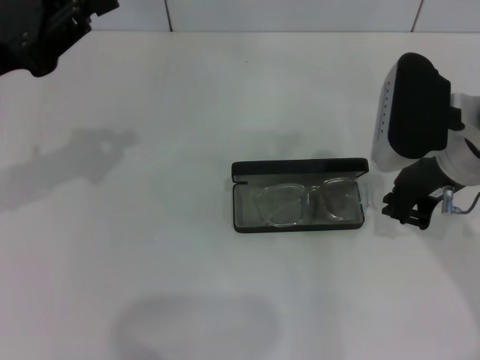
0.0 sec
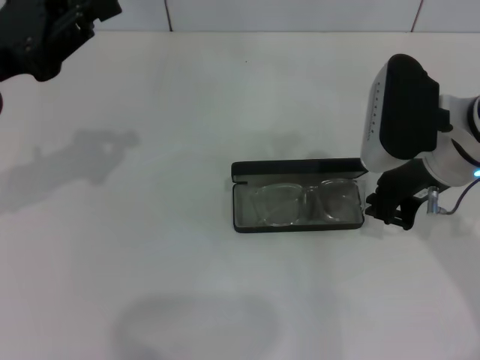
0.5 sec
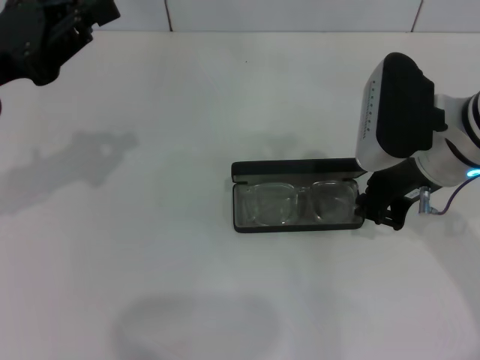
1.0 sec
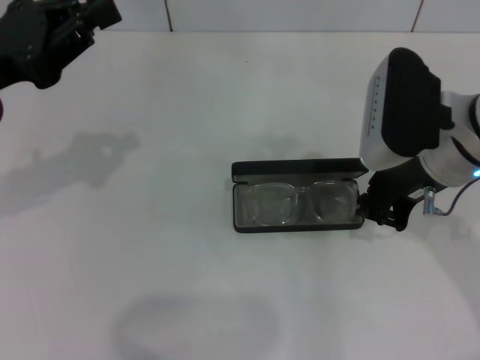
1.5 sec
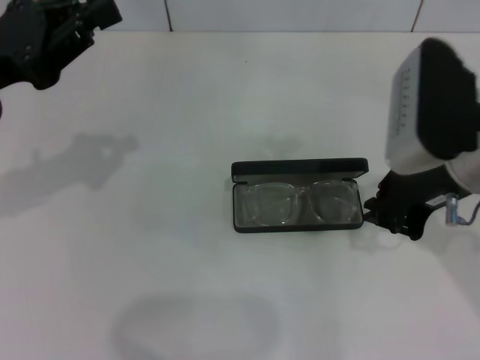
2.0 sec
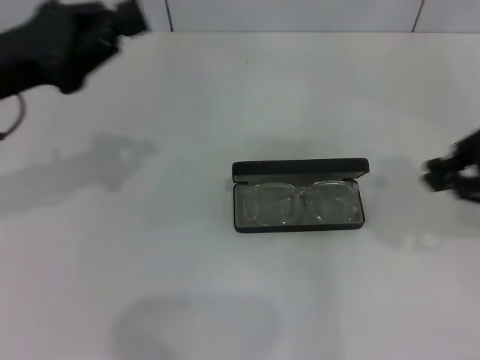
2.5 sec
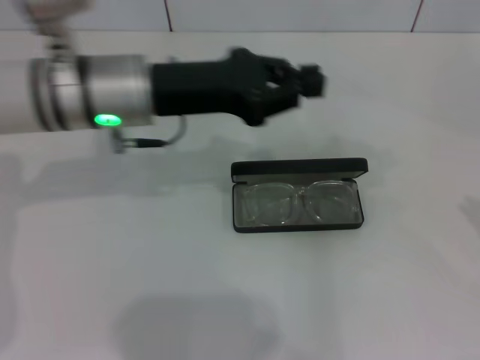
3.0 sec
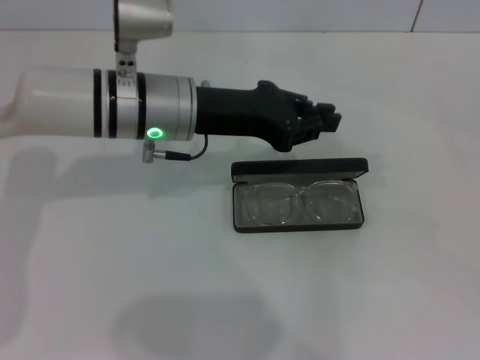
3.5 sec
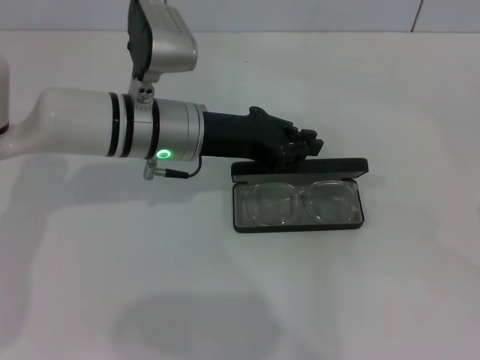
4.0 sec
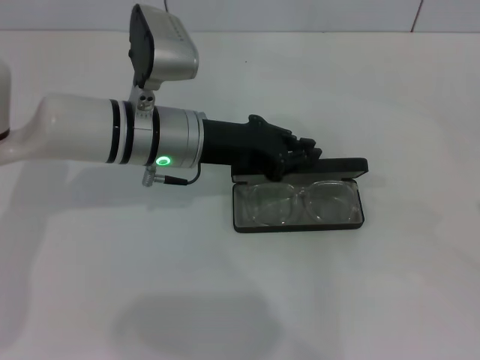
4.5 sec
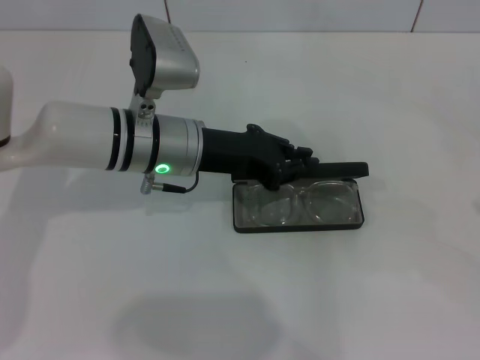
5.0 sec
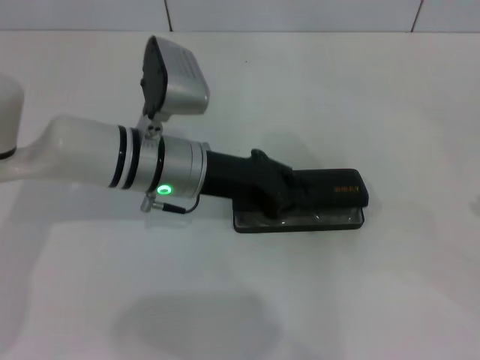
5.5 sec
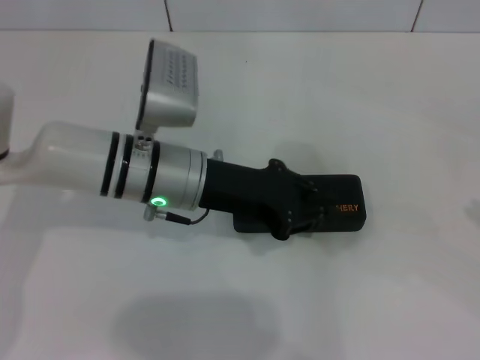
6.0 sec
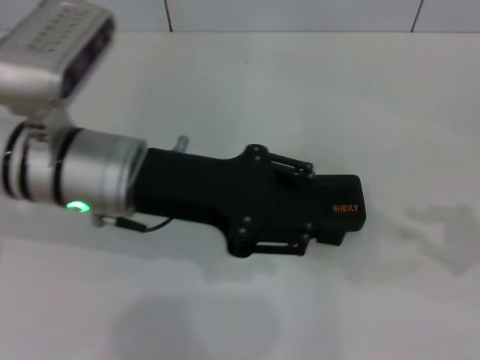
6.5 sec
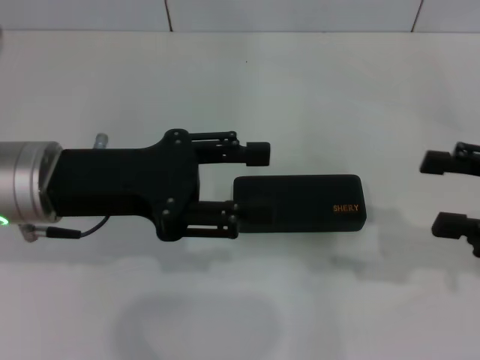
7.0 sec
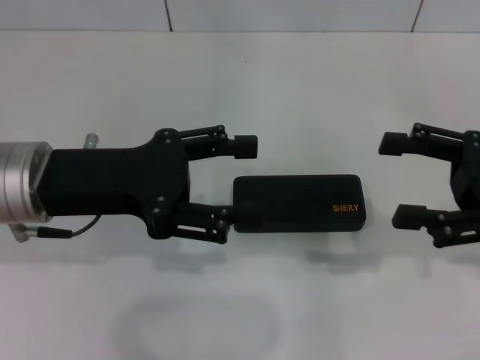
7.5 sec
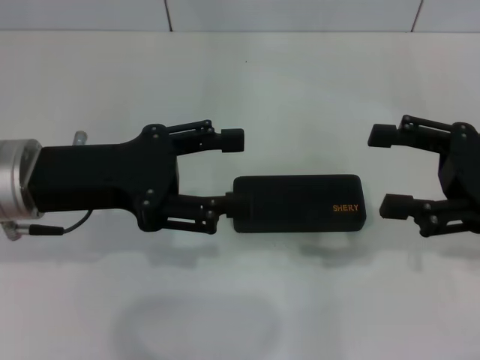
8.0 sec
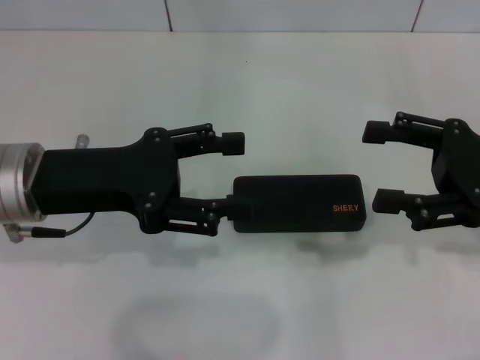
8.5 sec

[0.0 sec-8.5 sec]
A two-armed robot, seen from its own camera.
Step, 0.0 sec to 5.5 sec: Close the glasses case with your left hand.
0.0 sec to 2.0 sec: The grippers move only a little.
2.0 sec to 4.0 sec: The right gripper heads to the right and backward, covering roughly 30 cm. The left gripper goes some 20 cm to the right and downward.
4.0 sec to 6.5 sec: The left gripper goes about 10 cm backward and upward. Meanwhile the right gripper changes place by about 5 cm.
6.5 sec to 8.5 sec: The left gripper travels to the left by some 5 cm, and opens up; the right gripper goes about 15 cm to the left and forward, and opens up.

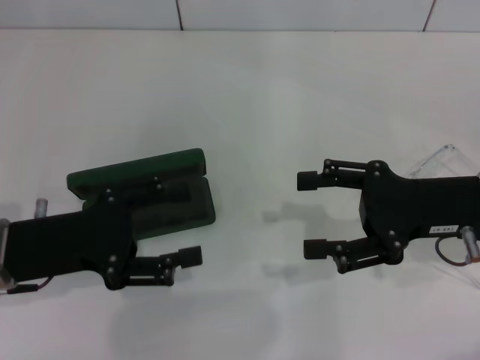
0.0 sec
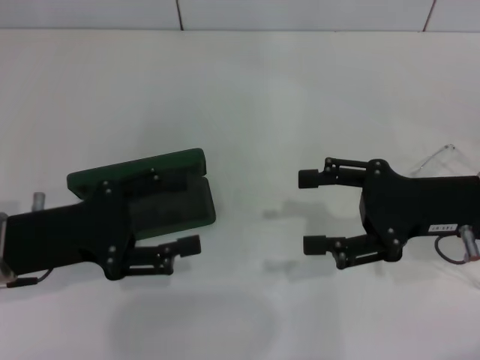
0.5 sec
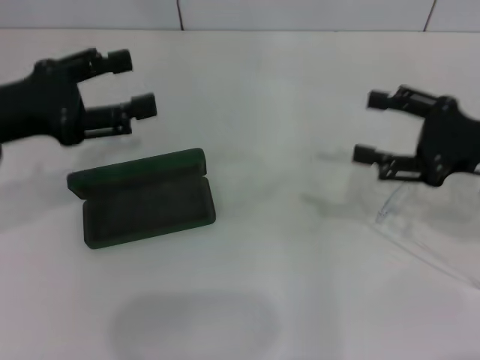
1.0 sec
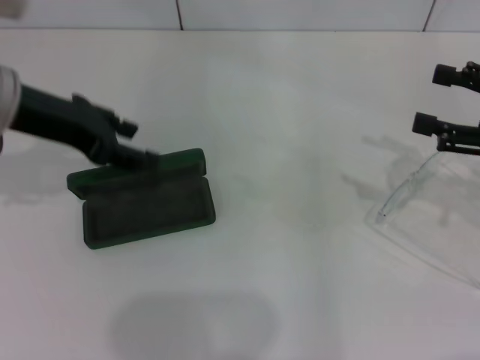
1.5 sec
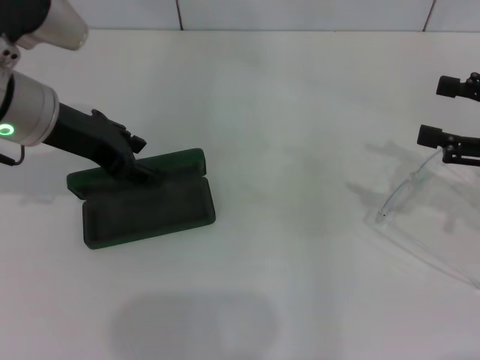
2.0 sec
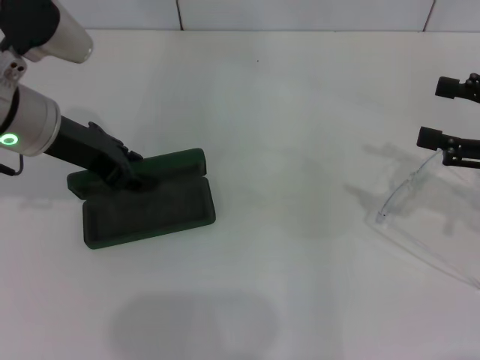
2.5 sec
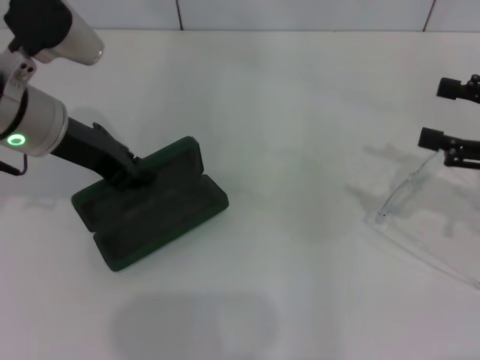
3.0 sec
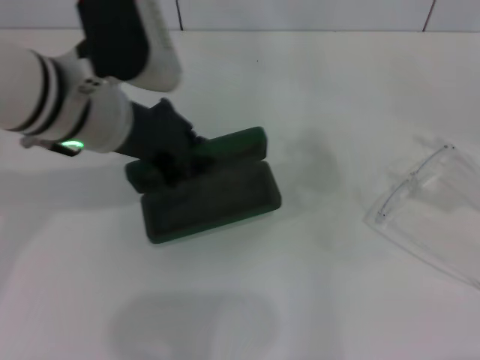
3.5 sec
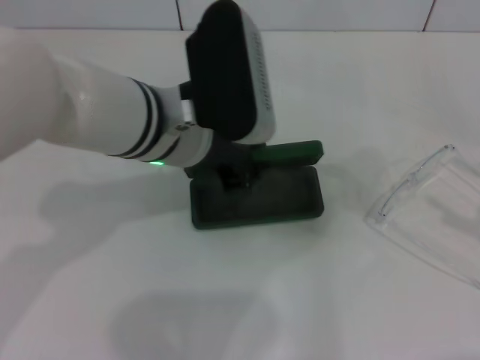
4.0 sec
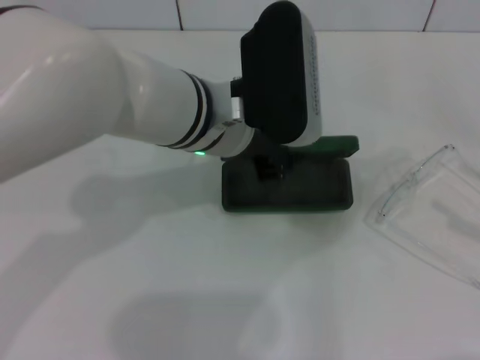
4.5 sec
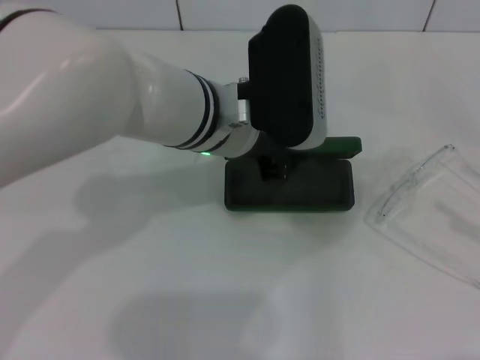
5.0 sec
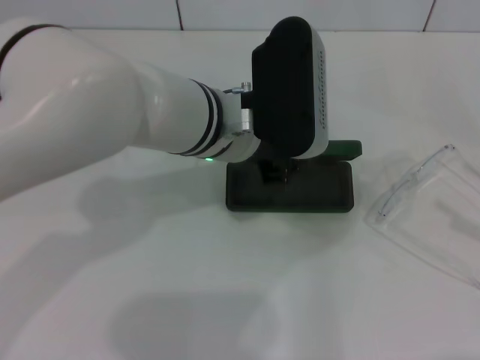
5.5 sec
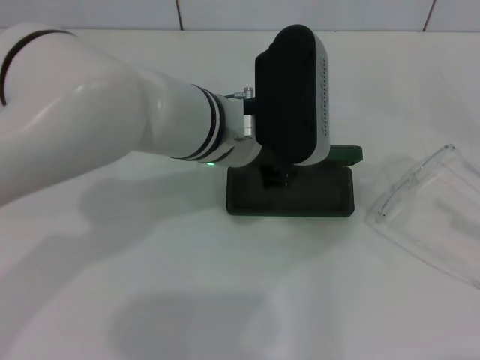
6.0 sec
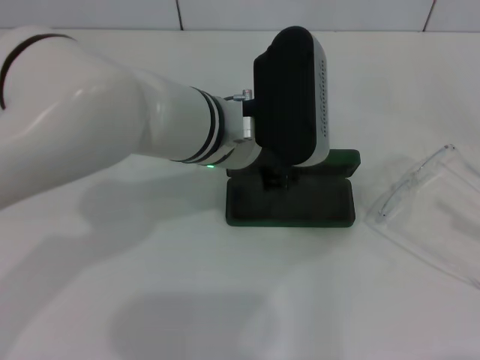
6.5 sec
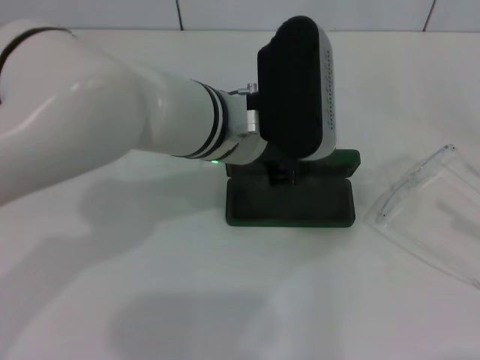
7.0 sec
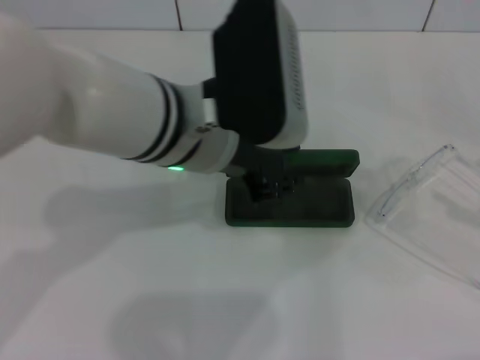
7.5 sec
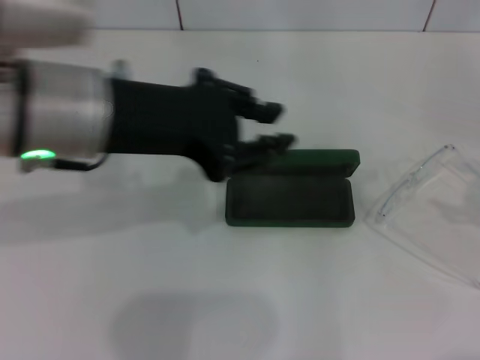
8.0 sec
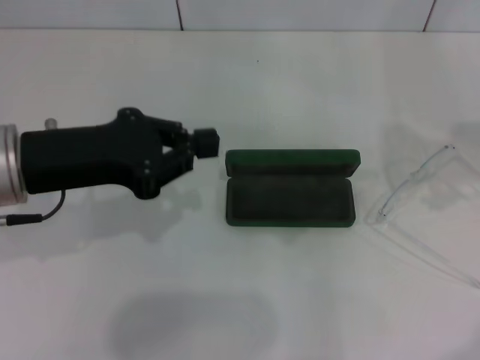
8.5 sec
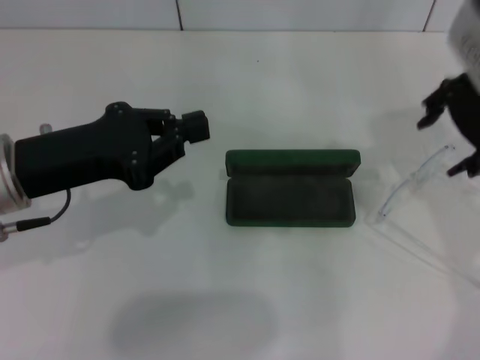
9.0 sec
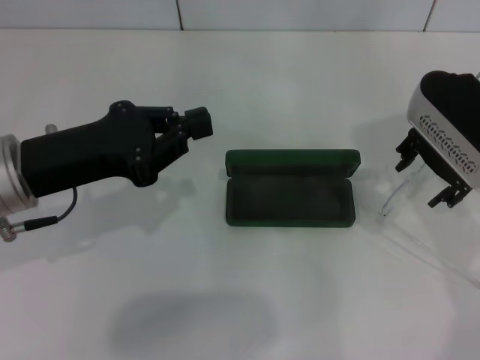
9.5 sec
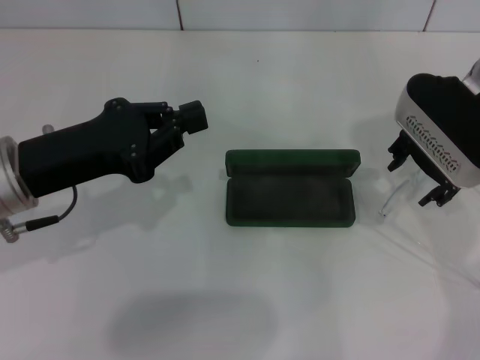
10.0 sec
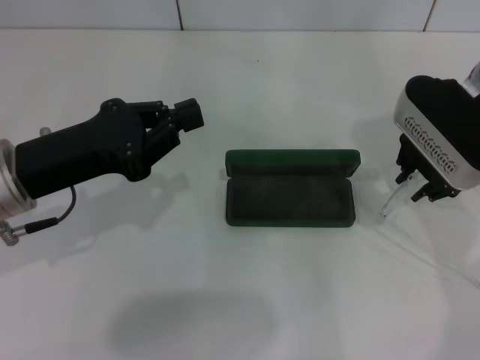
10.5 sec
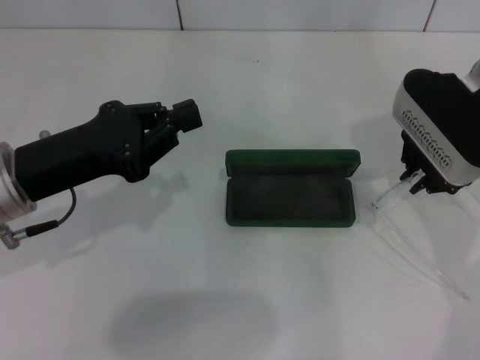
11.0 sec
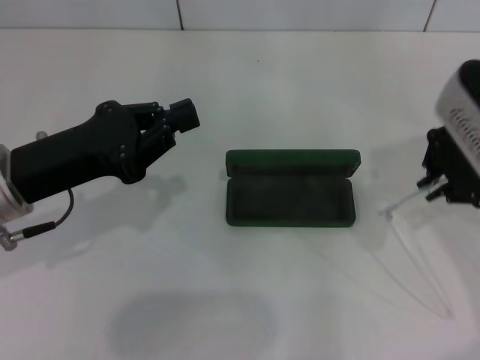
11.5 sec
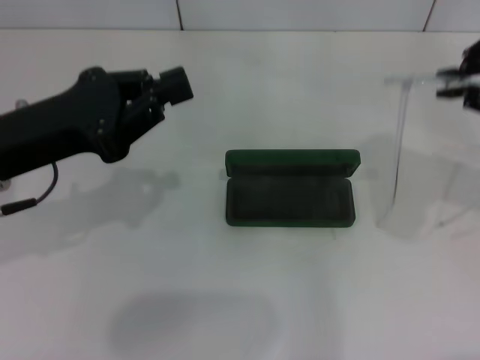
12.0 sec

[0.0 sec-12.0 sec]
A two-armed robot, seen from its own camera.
Step, 0.0 sec to 2.5 sec: Grab the glasses case with your left hand.
Step, 3.0 sec to 6.5 sec: Place the glasses case in the center of the table with your left hand.
Step, 7.0 sec to 11.0 sec: Grab the eyeglass frame with your right hand.
0.0 sec to 2.0 sec: The right gripper goes roughly 10 cm to the right. The left gripper heads forward and upward, covering approximately 15 cm.
2.0 sec to 4.0 sec: The left gripper goes some 15 cm to the right, and closes, while the right gripper shifts some 10 cm backward and to the right.
6.0 sec to 8.0 sec: The left gripper goes about 15 cm to the left, upward and backward; the right gripper is displaced forward by about 10 cm.
8.0 sec to 10.0 sec: The left gripper heads downward and to the left, covering roughly 15 cm, and closes its fingers; the right gripper travels to the left and forward by some 25 cm.
10.0 sec to 12.0 sec: The right gripper moves upward, backward and to the right, approximately 15 cm, and closes.

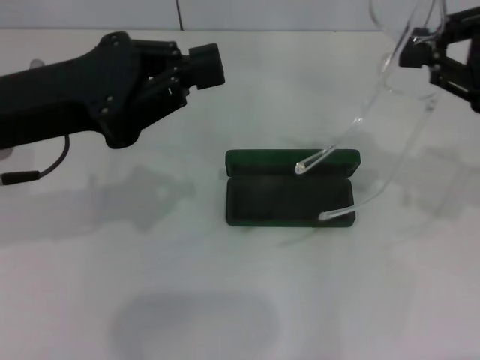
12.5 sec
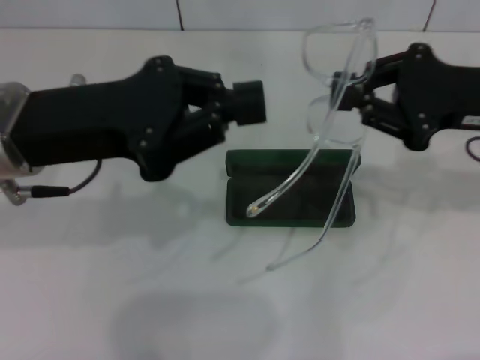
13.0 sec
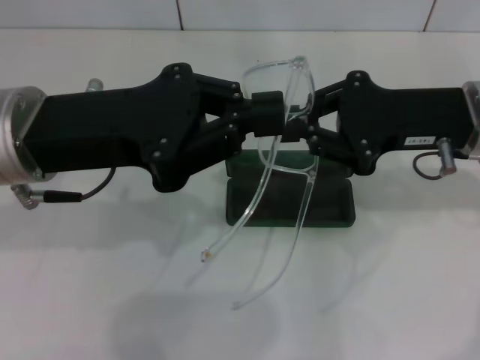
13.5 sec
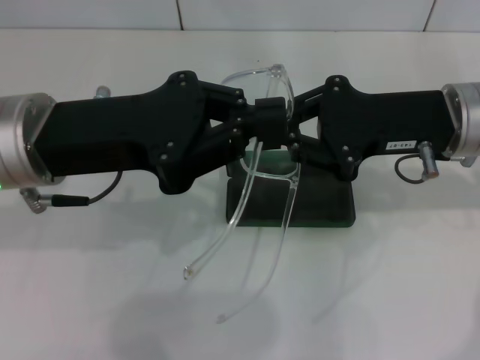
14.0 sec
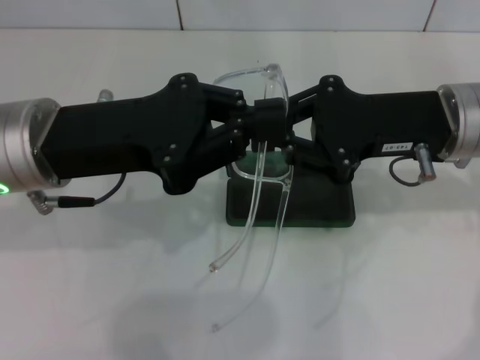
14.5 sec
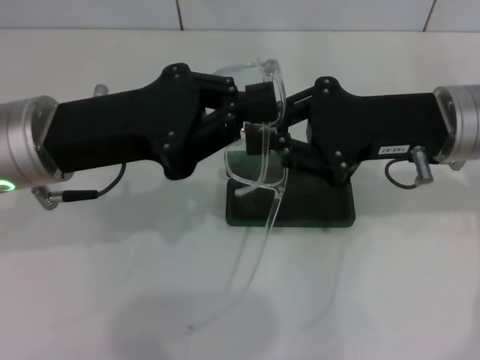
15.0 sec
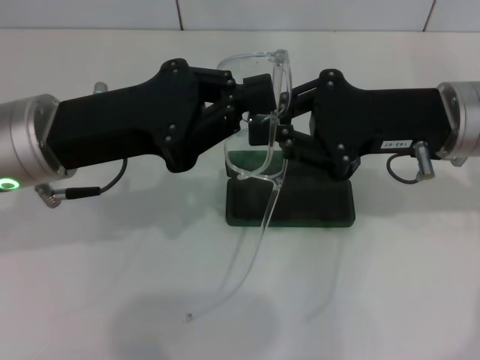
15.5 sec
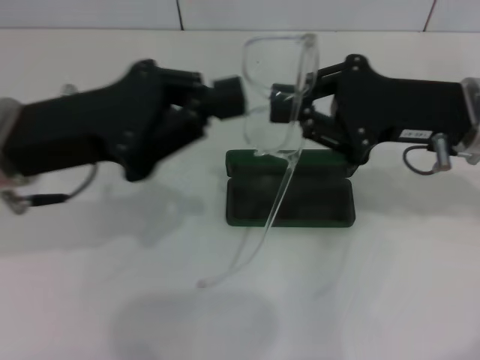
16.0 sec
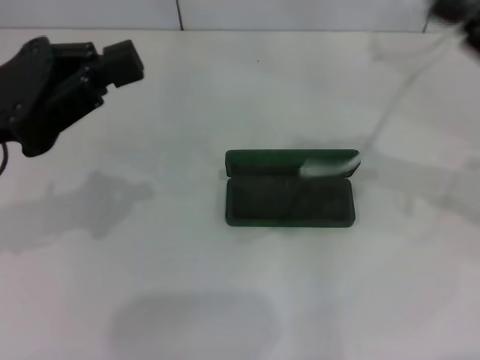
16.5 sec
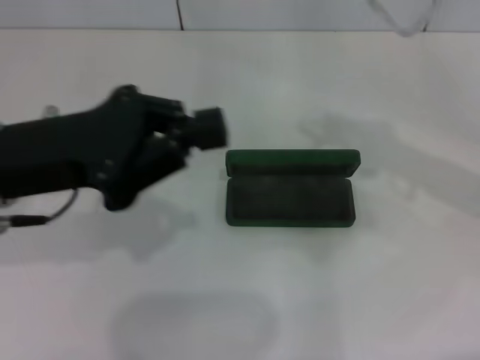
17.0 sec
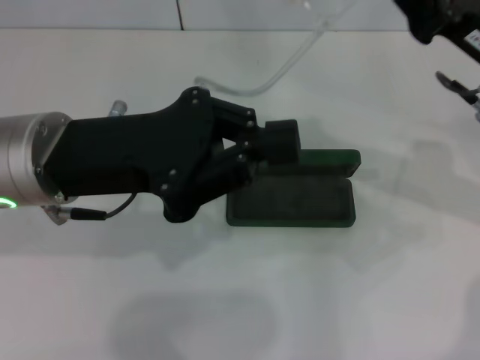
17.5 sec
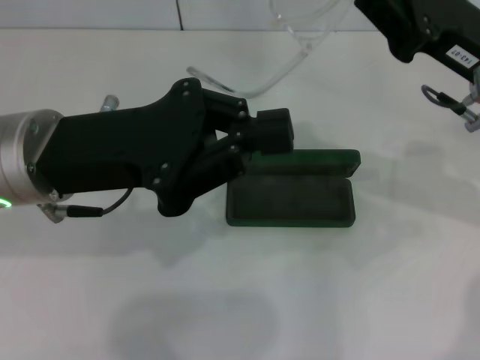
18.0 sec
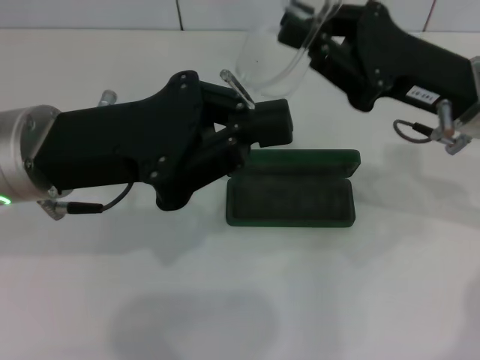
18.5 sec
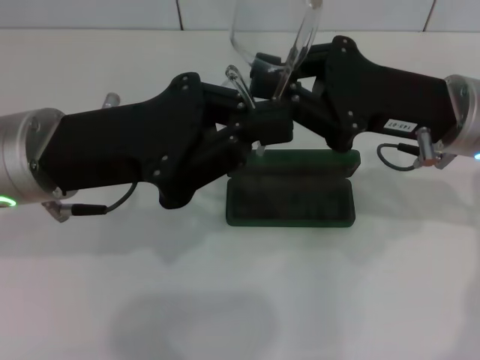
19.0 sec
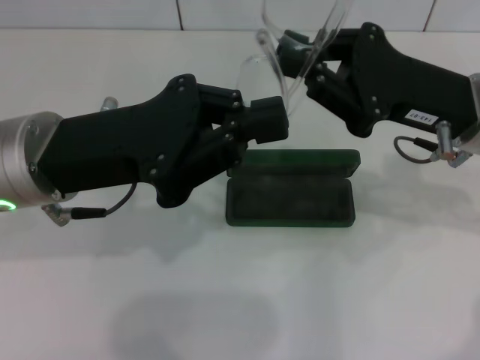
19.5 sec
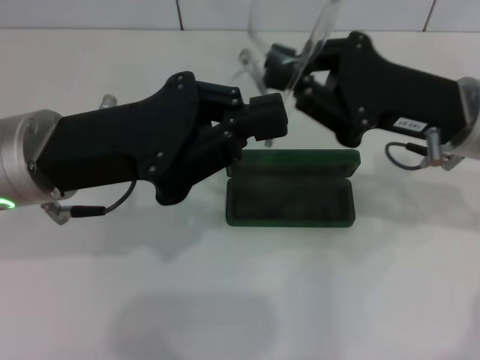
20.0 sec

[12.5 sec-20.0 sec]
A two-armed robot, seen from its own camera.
Step, 12.5 sec to 19.0 sec: Fold the frame with your left hand.
12.5 sec to 14.5 sec: The right gripper goes about 10 cm to the left and downward.
14.5 sec to 16.5 sec: The right gripper goes approximately 10 cm to the right; the left gripper heads to the left, covering approximately 10 cm.
16.5 sec to 18.0 sec: The left gripper heads to the right, covering about 10 cm. Meanwhile the right gripper is displaced to the left by approximately 10 cm.
18.0 sec to 20.0 sec: The grippers move only a little.
